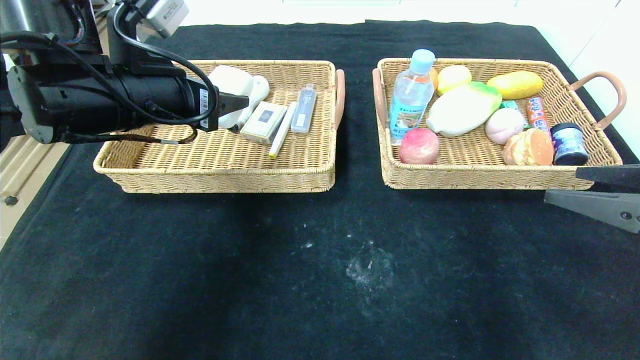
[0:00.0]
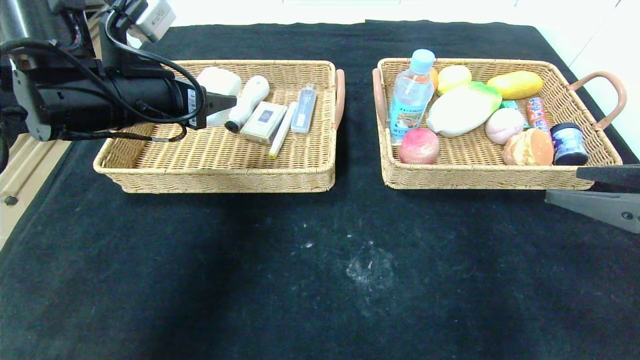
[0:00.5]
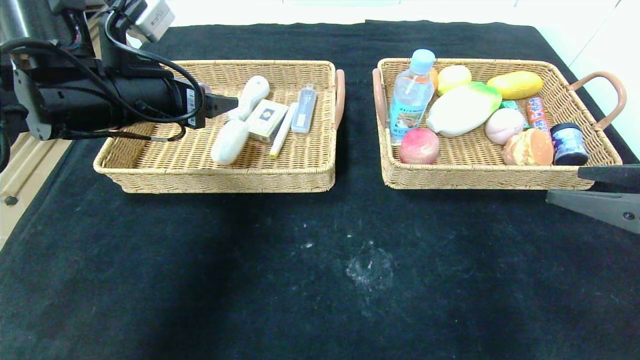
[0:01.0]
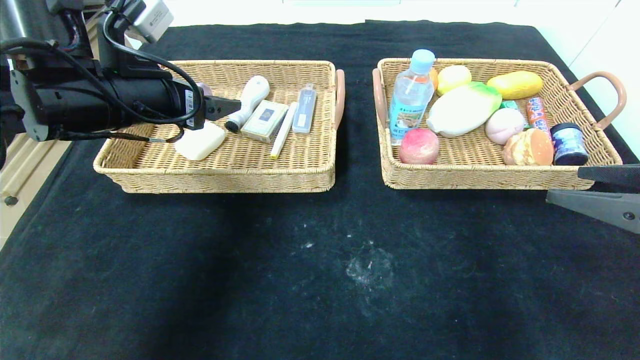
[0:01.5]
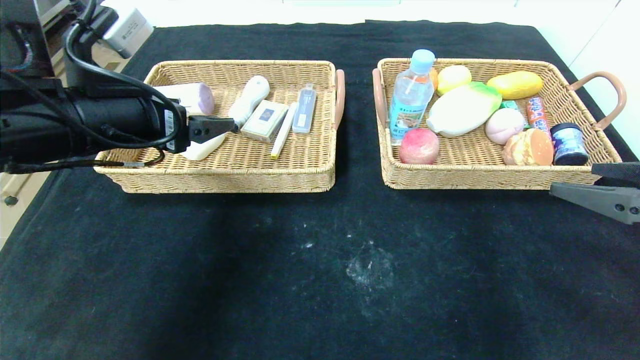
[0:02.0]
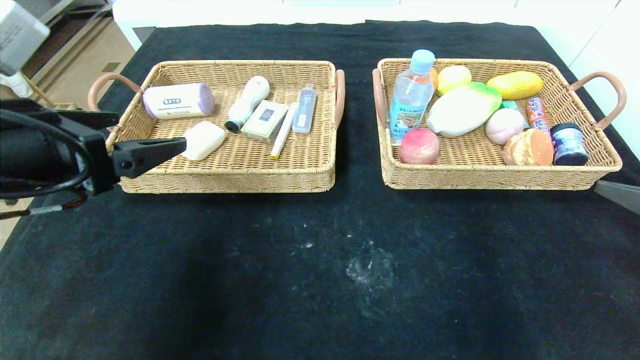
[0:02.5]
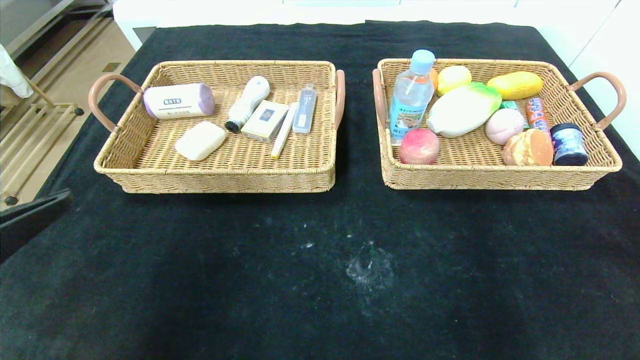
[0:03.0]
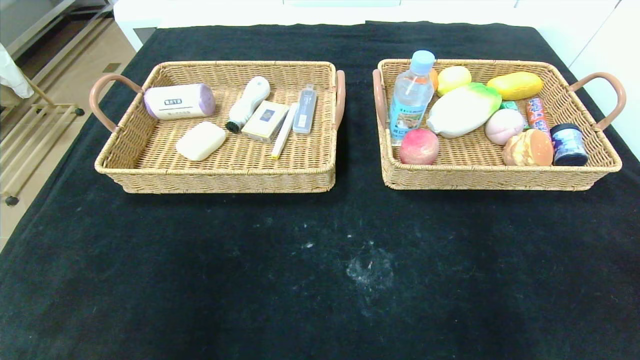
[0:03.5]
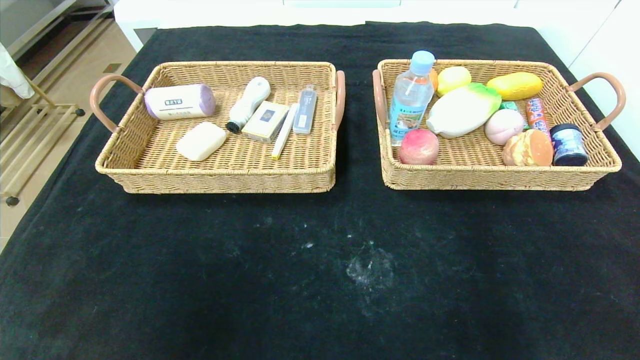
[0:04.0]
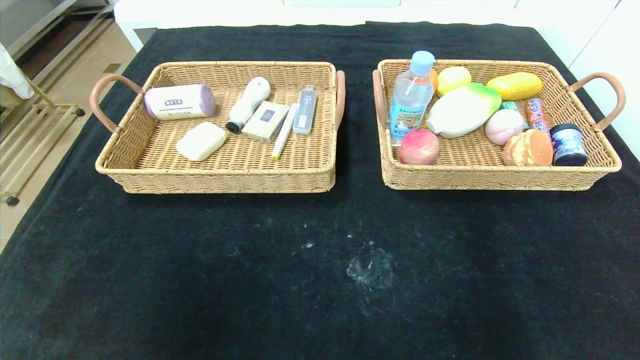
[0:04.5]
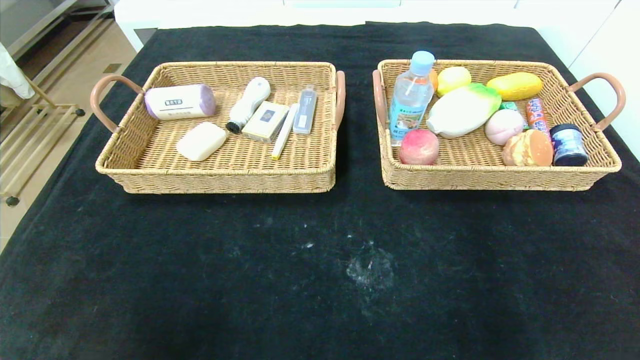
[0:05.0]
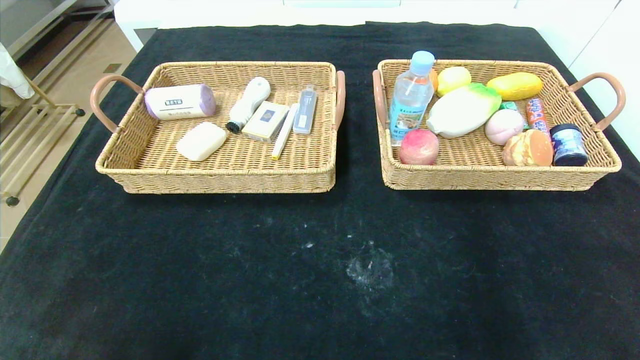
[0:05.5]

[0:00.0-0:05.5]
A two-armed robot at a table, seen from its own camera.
0:00.0 to 0:02.0: The left gripper opens up.
0:02.0 to 0:03.5: The right gripper is displaced backward by about 20 cm, while the left gripper heads backward, covering approximately 30 cm.
0:03.5 to 0:05.5: The left gripper shifts some 20 cm downward.

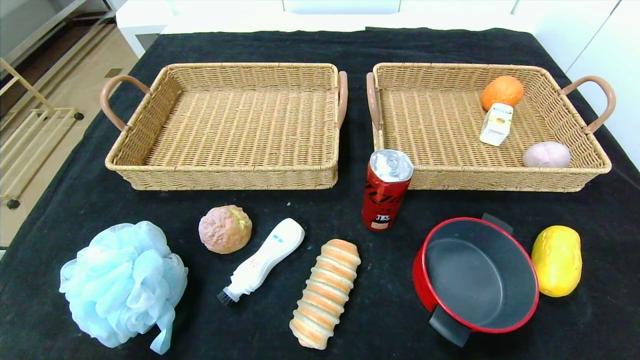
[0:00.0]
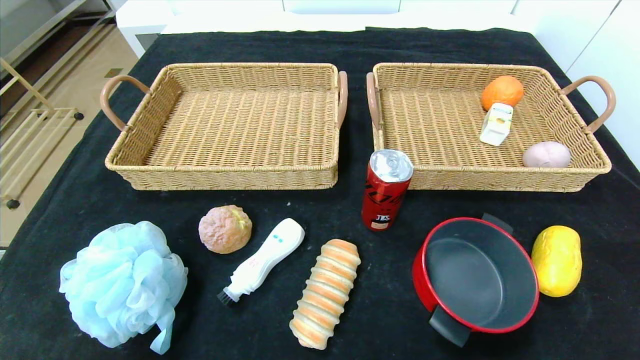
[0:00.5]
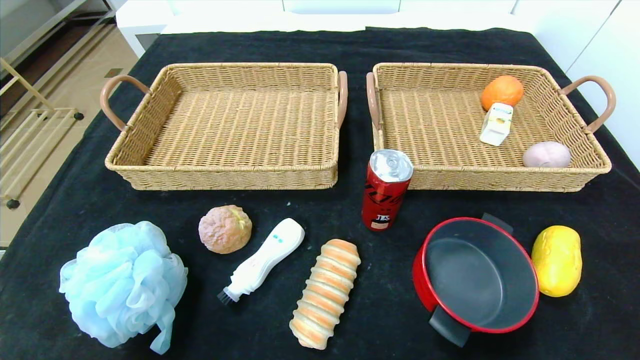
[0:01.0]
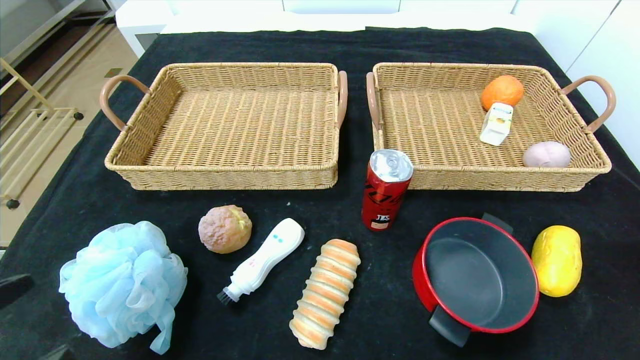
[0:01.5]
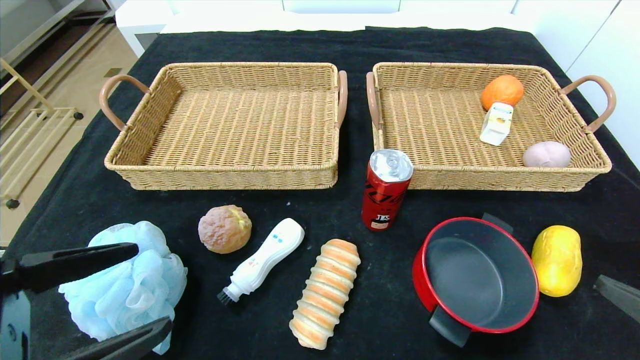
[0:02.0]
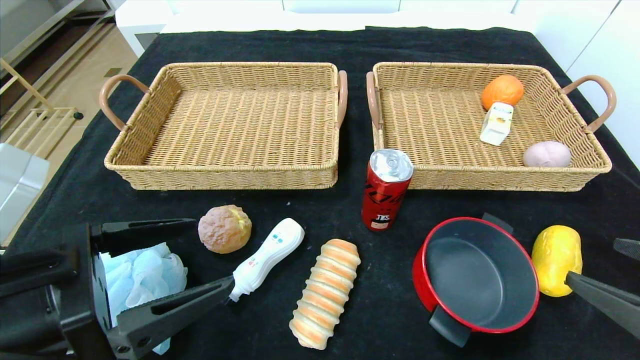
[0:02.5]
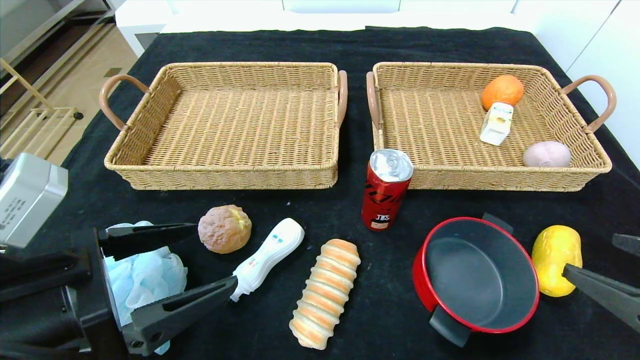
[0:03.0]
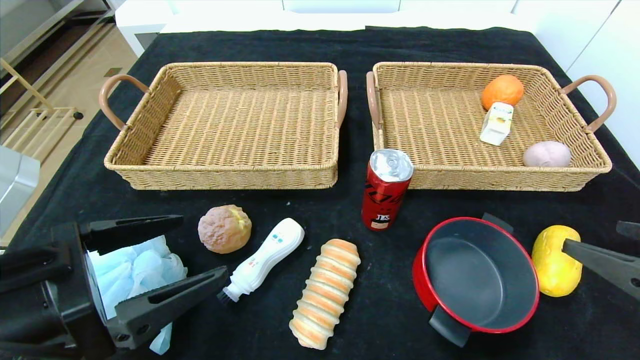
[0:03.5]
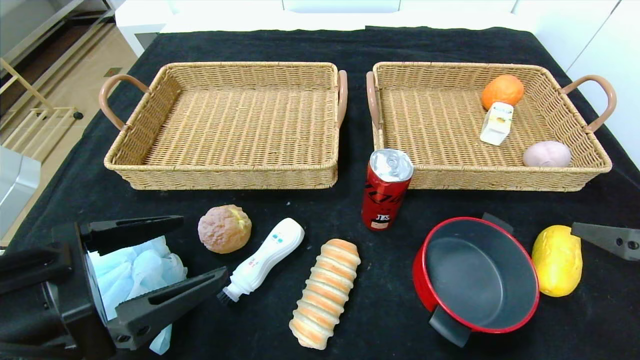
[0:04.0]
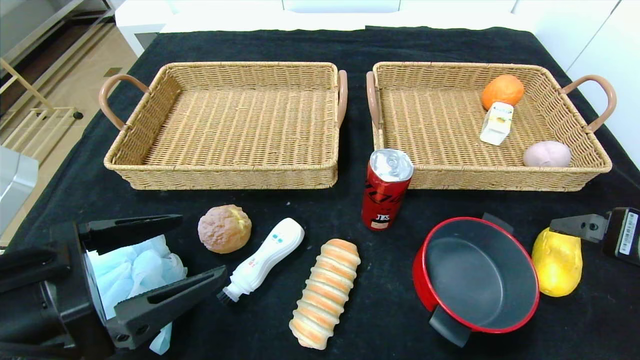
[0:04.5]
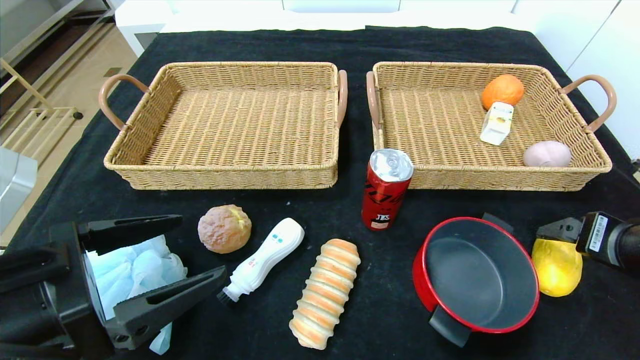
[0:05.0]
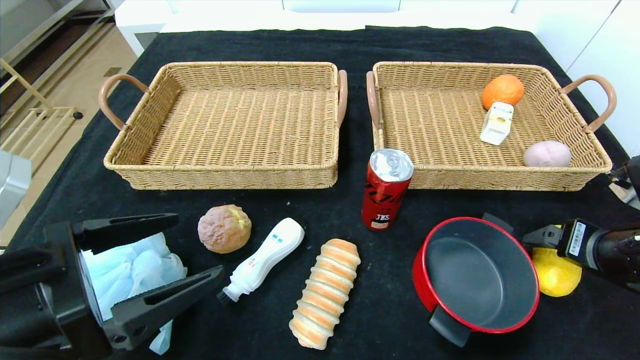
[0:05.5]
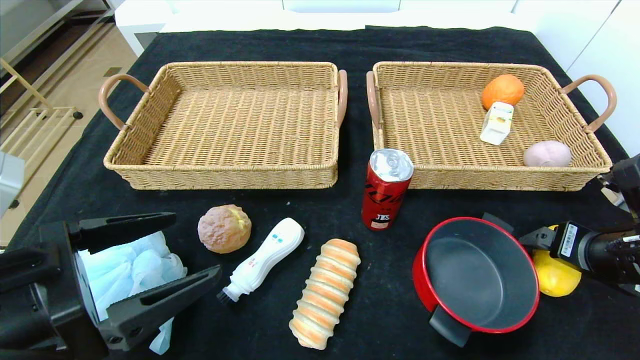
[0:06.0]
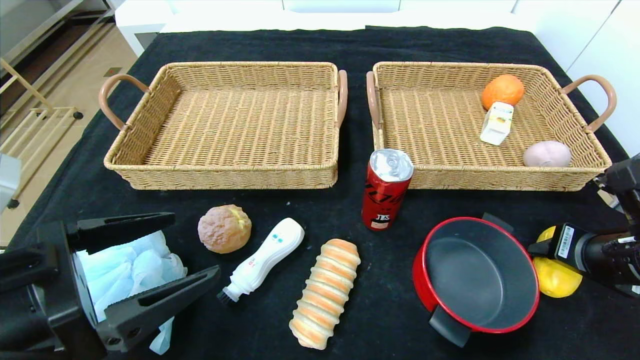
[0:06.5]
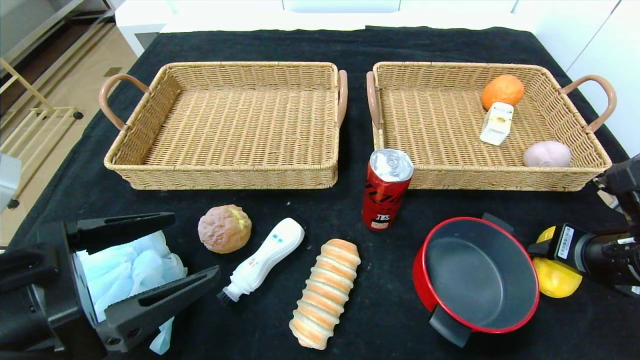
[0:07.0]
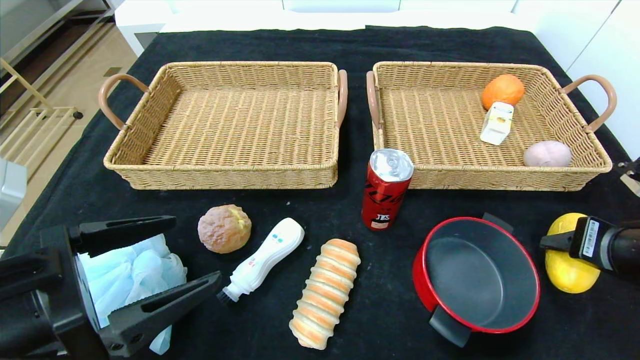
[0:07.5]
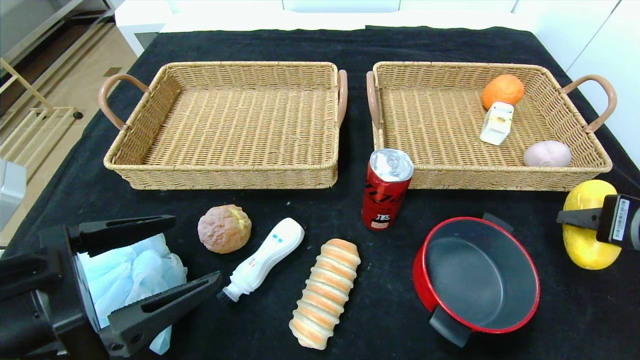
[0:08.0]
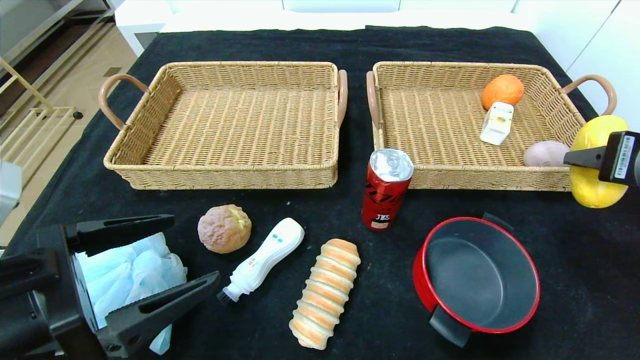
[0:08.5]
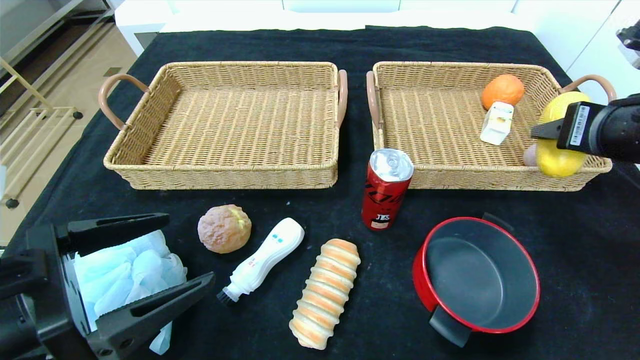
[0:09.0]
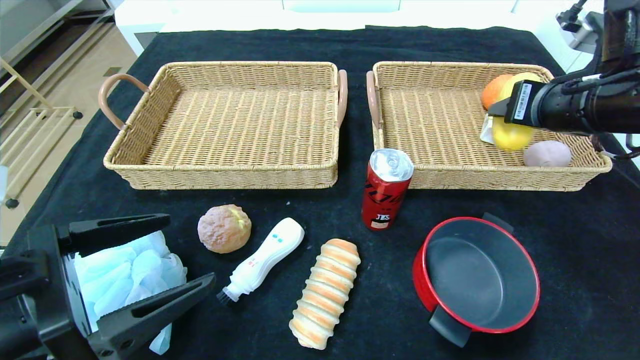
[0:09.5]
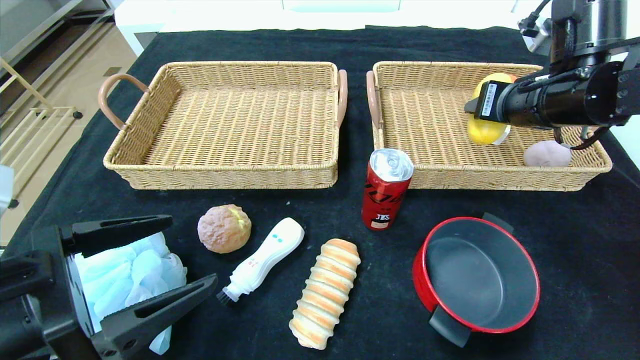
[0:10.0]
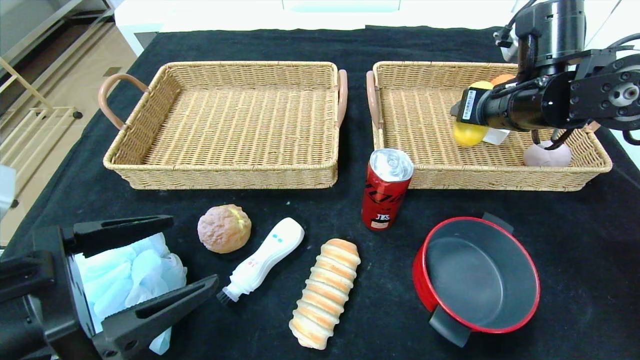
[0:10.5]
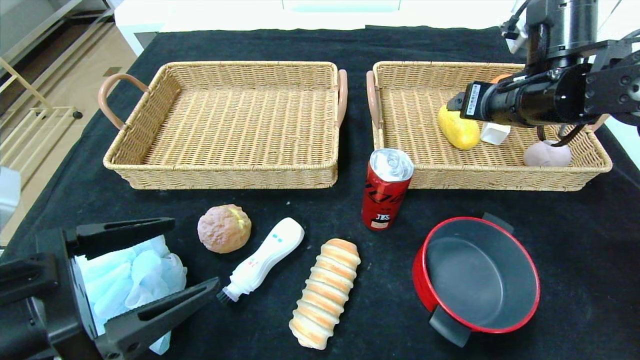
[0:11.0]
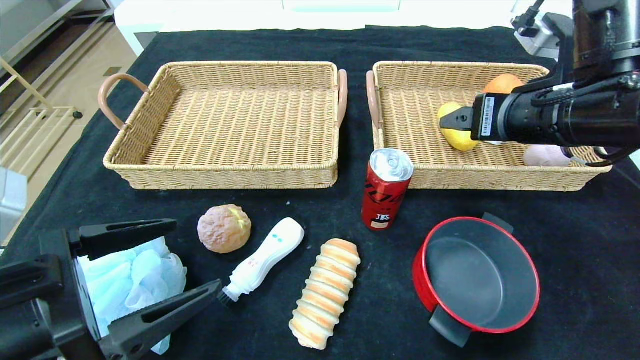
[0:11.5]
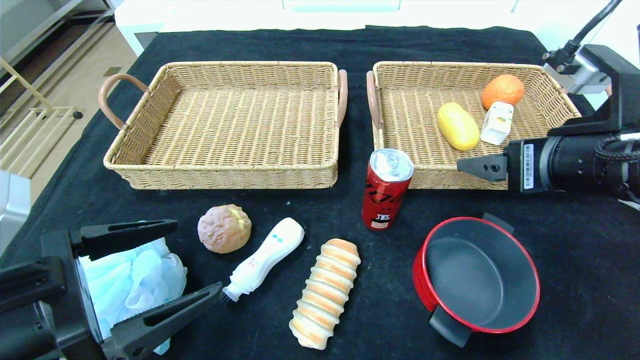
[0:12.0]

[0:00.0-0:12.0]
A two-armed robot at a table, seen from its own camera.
Step, 0:00.0 to 0:10.5: Grasp the mango and put it in the right basket.
0:00.0 to 0:02.0: The two grippers go some 20 cm upward and forward.
0:02.0 to 0:04.0: The right gripper shifts approximately 5 cm forward.
0:04.0 to 0:06.0: The right gripper goes some 10 cm forward and downward.
0:06.0 to 0:08.0: The right gripper is displaced upward by roughly 5 cm, and closes up.
0:08.0 to 0:10.0: The right gripper moves forward, to the left and upward, roughly 20 cm.
0:10.0 to 0:12.0: The right gripper moves backward, about 15 cm, and opens up.

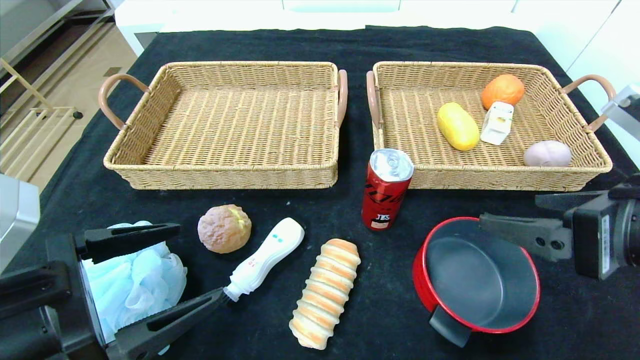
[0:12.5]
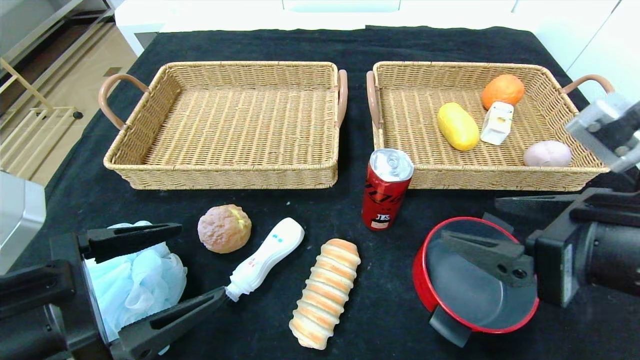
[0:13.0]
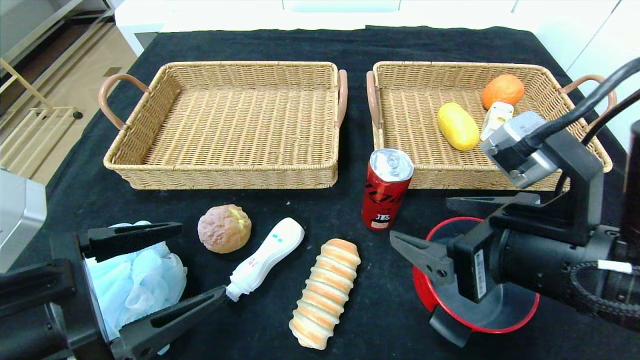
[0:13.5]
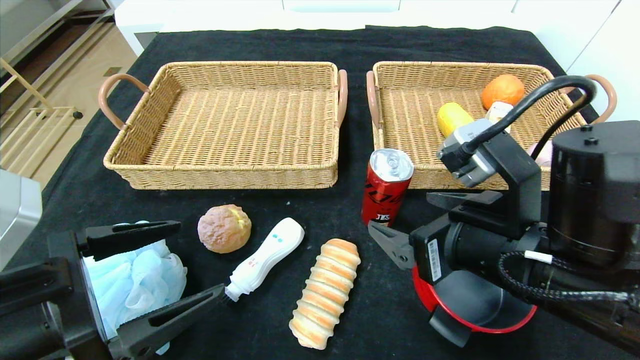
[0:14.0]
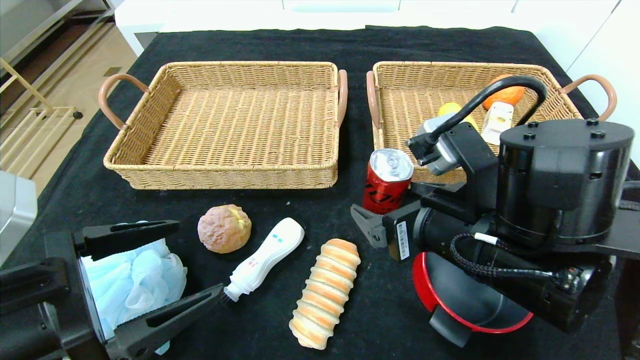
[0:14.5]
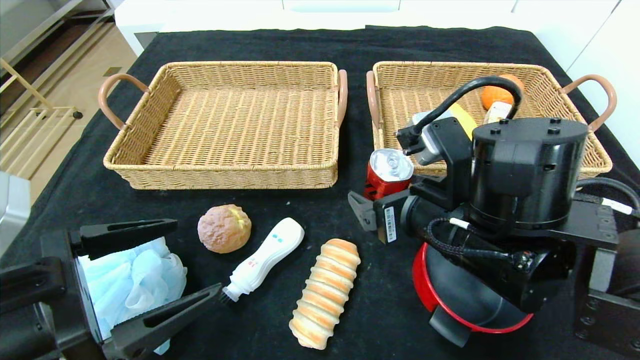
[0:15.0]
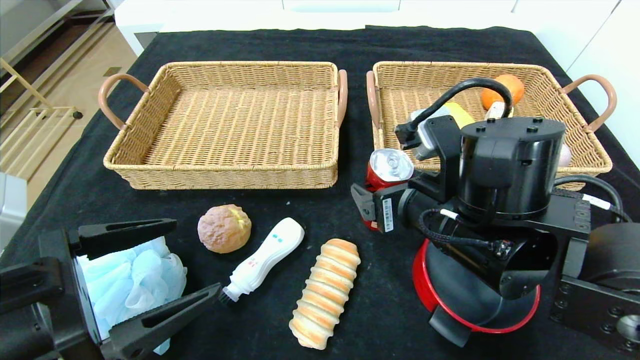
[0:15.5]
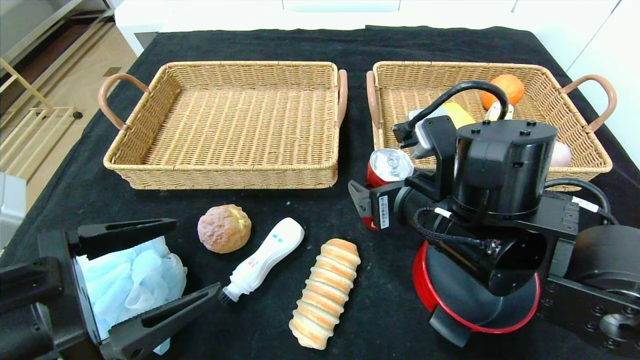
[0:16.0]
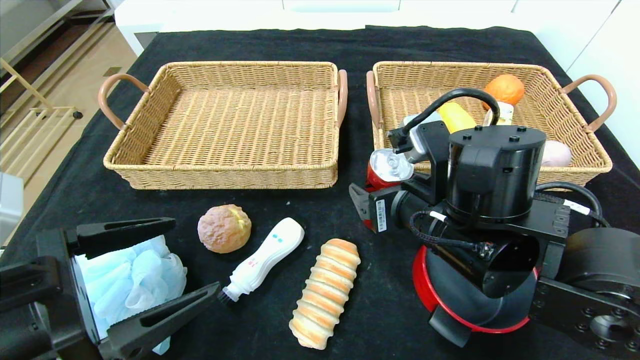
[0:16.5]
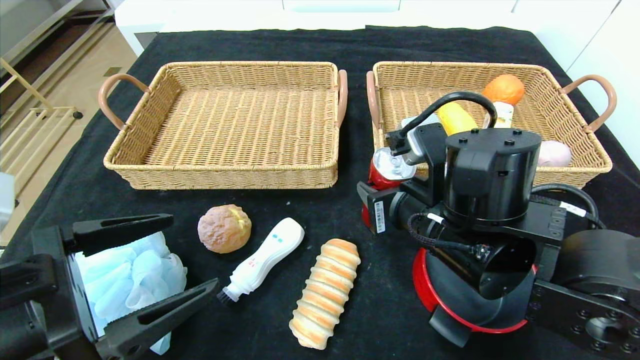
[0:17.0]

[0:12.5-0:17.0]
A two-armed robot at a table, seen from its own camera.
0:12.5 to 0:14.5: The right gripper moves to the left and forward, about 15 cm.
0:14.5 to 0:17.0: The right gripper closes.
